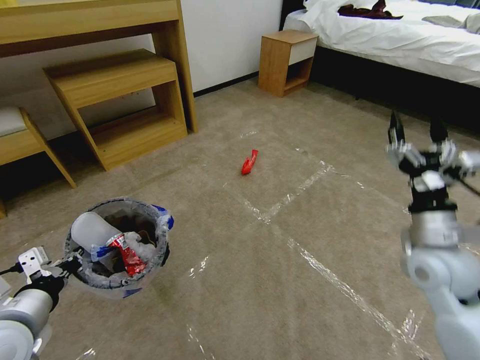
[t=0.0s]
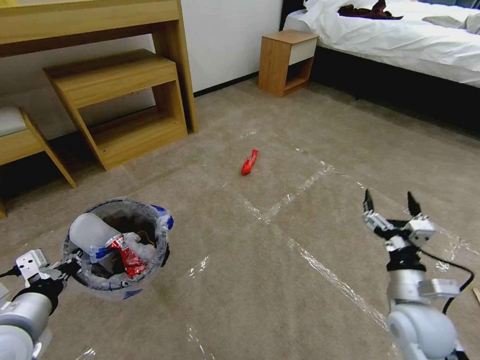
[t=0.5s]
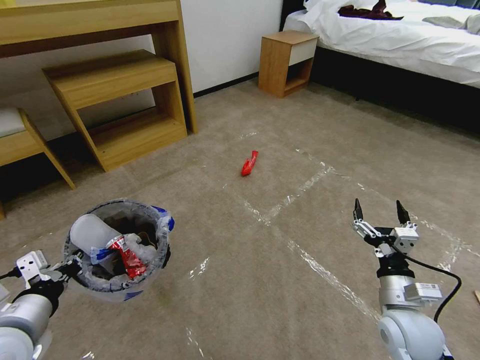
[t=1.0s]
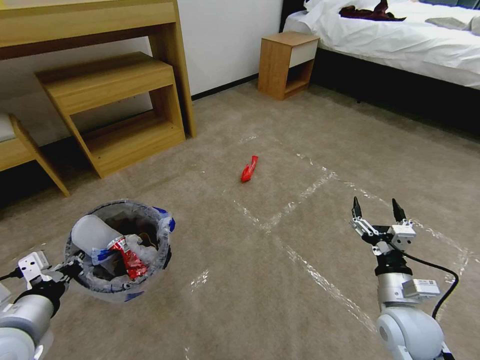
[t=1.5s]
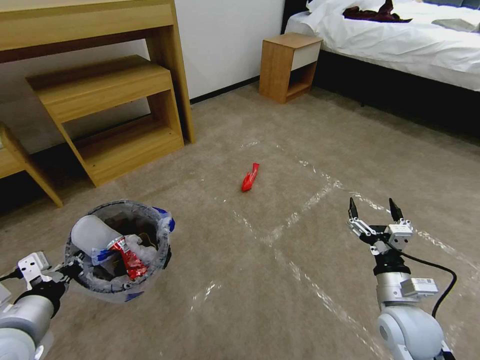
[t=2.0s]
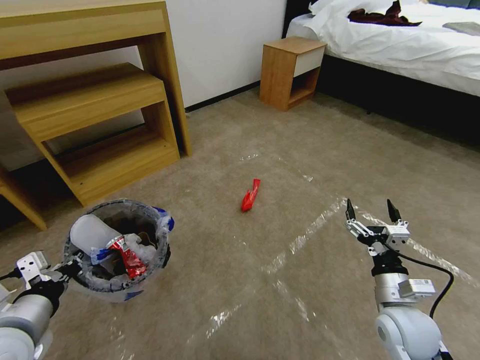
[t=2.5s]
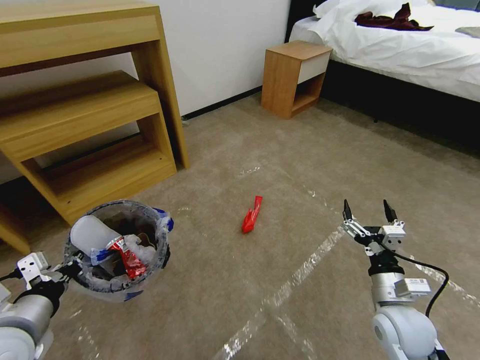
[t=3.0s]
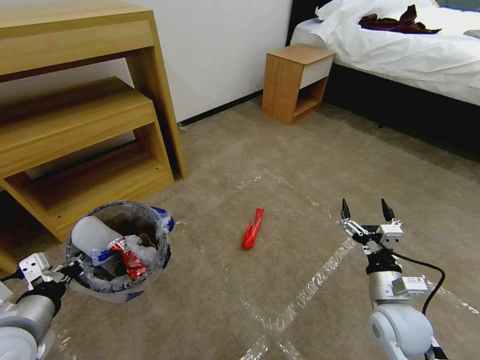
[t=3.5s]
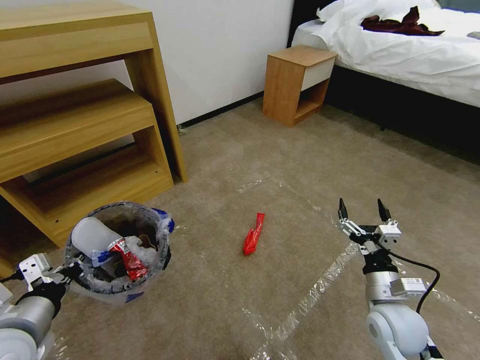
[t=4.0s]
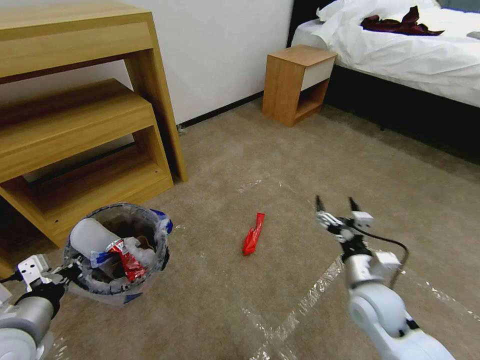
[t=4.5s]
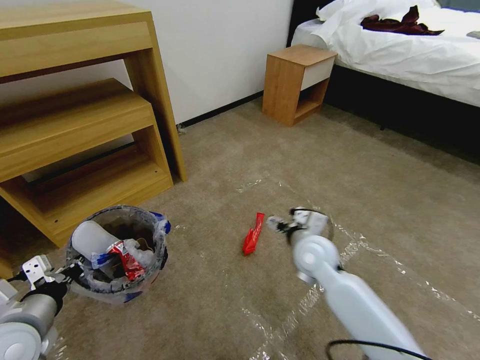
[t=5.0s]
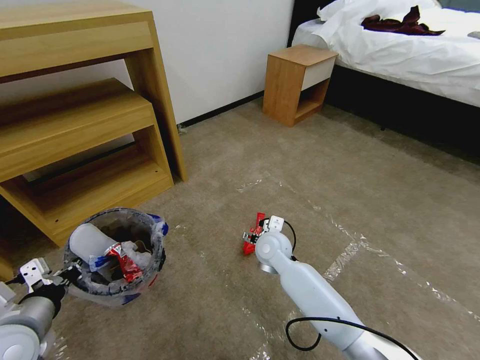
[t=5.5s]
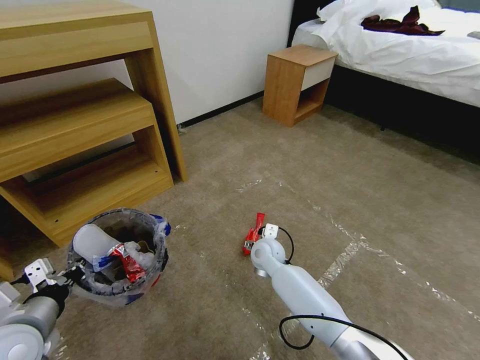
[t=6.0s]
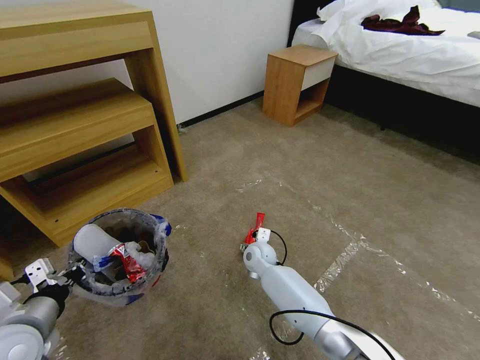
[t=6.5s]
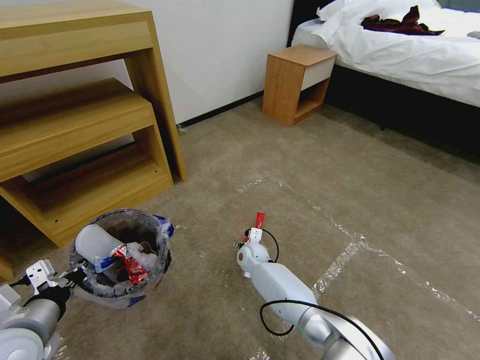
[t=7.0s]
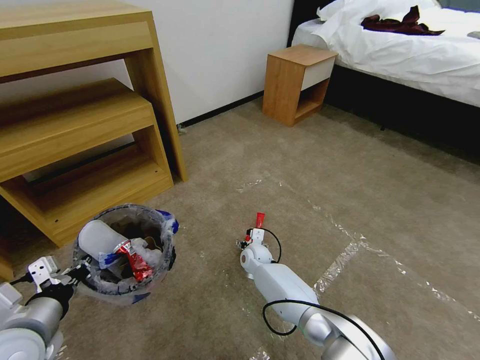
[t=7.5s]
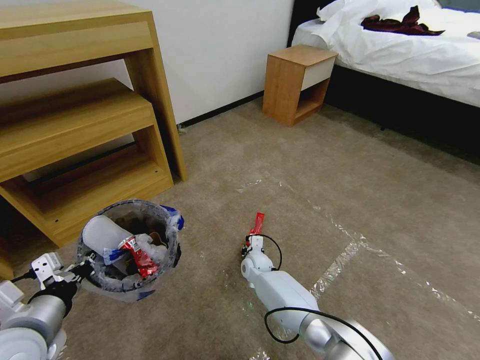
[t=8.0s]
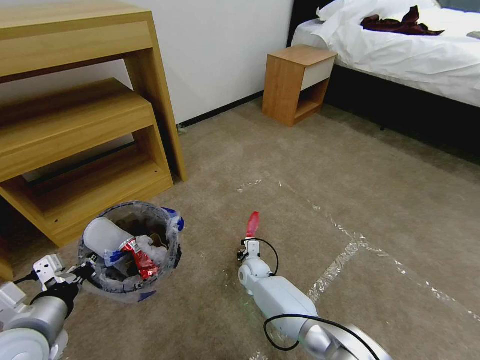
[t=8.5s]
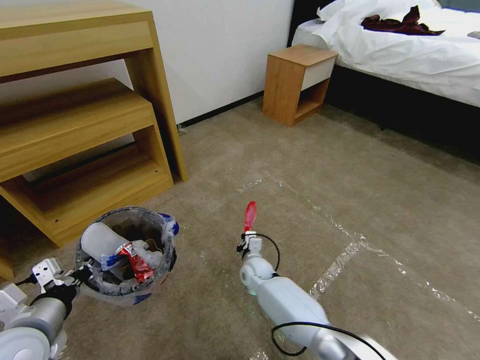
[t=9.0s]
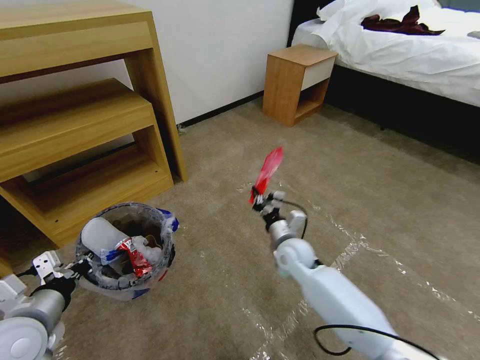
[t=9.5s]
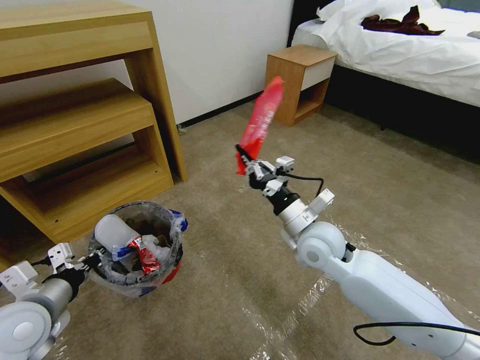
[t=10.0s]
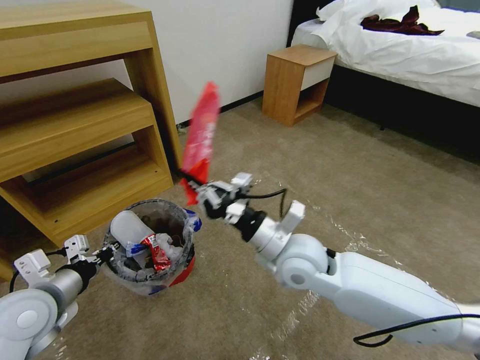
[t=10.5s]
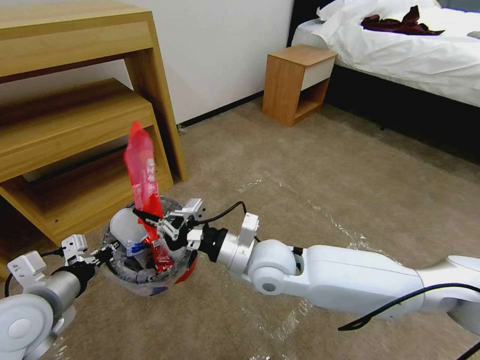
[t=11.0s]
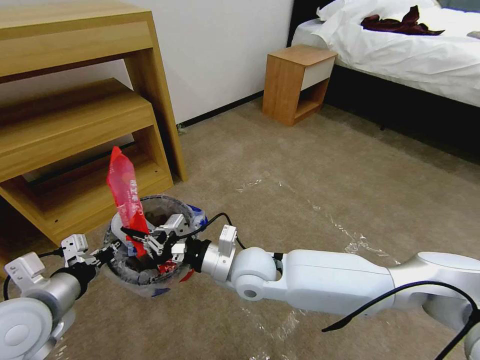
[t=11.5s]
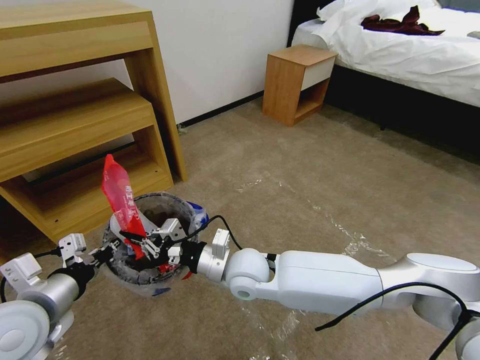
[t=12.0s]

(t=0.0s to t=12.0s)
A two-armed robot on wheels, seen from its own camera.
Task of the whole recording: Pick up the trash bin and place the garbage on the floor into it.
t=0.0s - t=2.0s: The right gripper goes roughly 15 cm downward and backward.
t=4.0s - t=6.0s: The right gripper is displaced to the left and forward by about 30 cm.
t=6.0s - t=8.0s: The right gripper shifts roughly 10 cm downward, and closes.
t=8.0s - t=10.0s: The right gripper is displaced upward by about 30 cm, and closes; the left gripper shifts by approximately 5 cm.
t=10.0s - t=12.0s: The left gripper ends up some 5 cm from where it was. Meanwhile the right gripper moves to the left, some 15 cm.

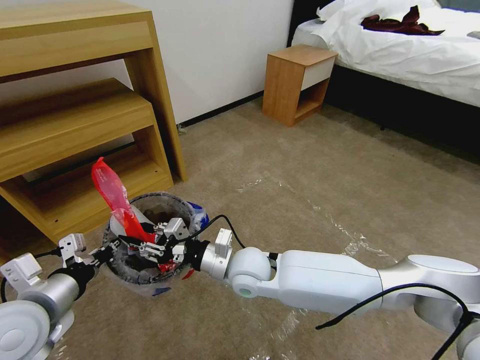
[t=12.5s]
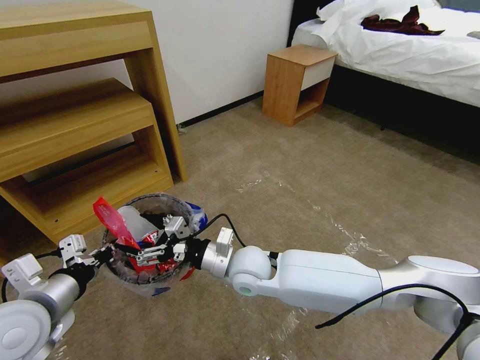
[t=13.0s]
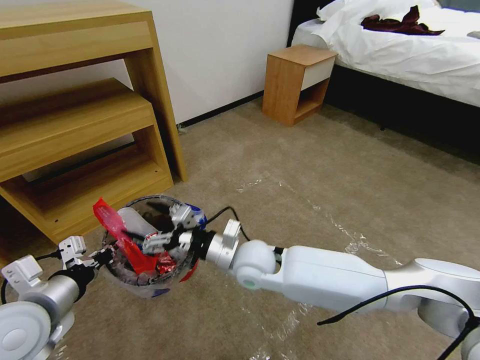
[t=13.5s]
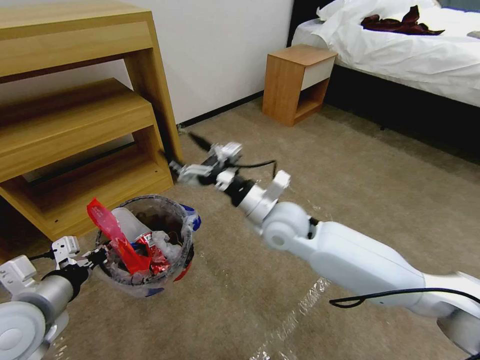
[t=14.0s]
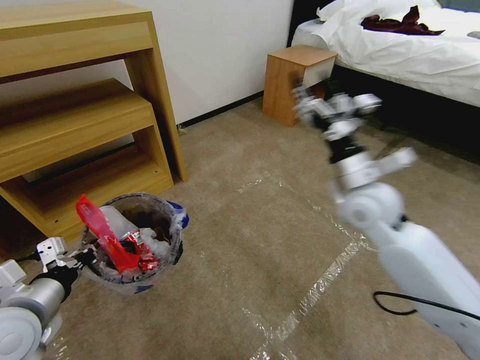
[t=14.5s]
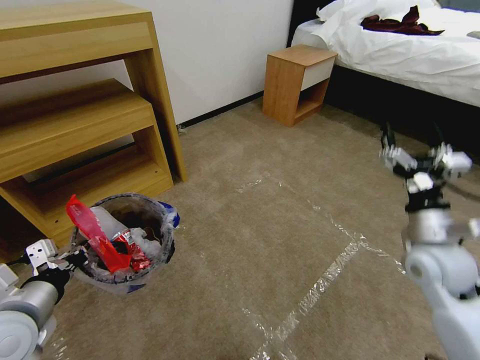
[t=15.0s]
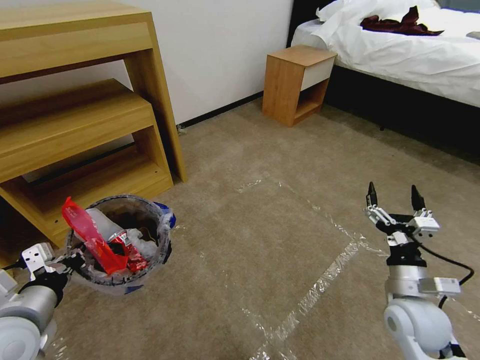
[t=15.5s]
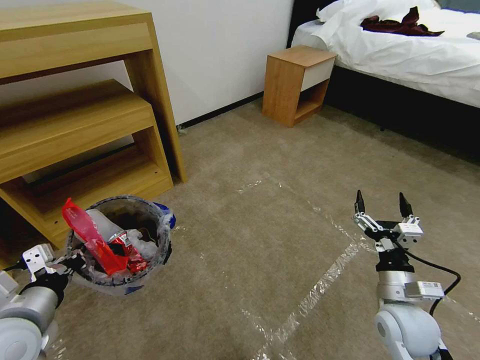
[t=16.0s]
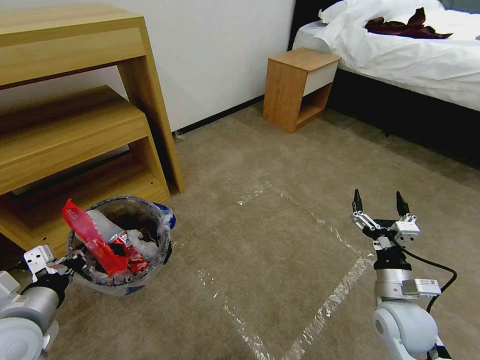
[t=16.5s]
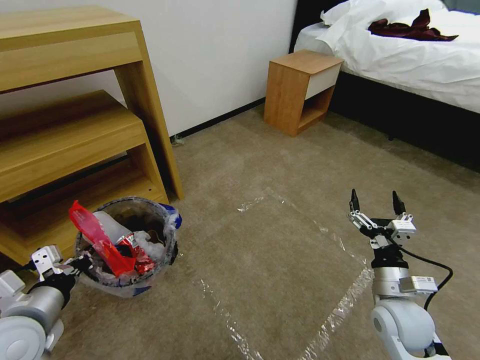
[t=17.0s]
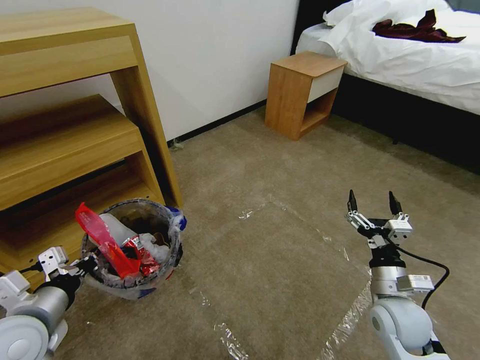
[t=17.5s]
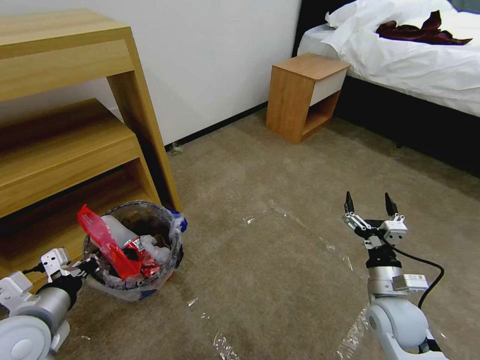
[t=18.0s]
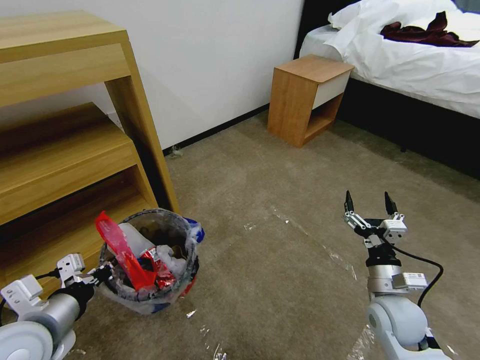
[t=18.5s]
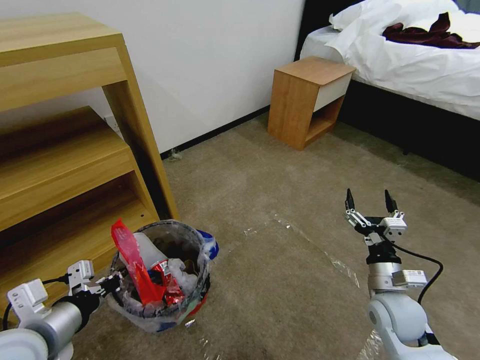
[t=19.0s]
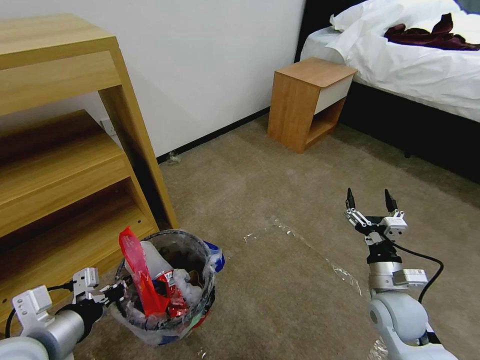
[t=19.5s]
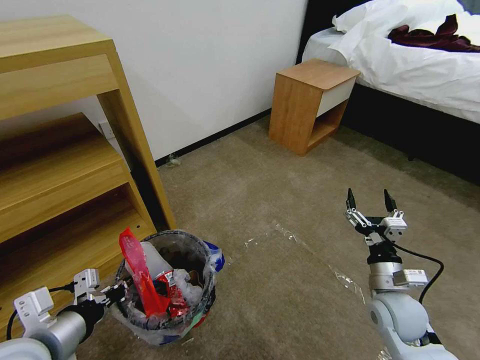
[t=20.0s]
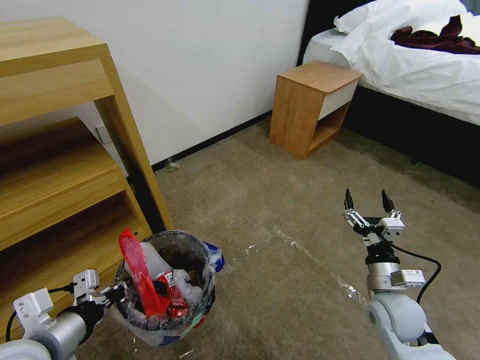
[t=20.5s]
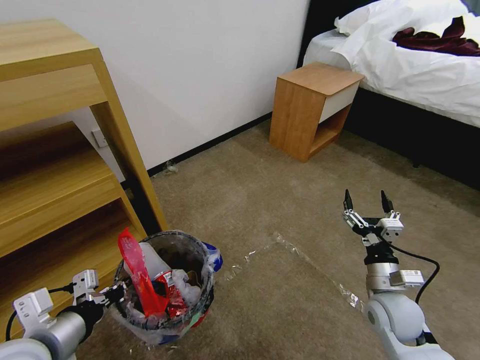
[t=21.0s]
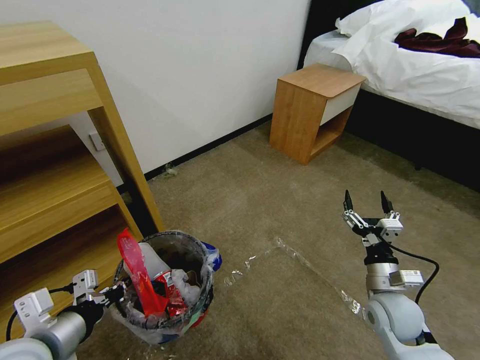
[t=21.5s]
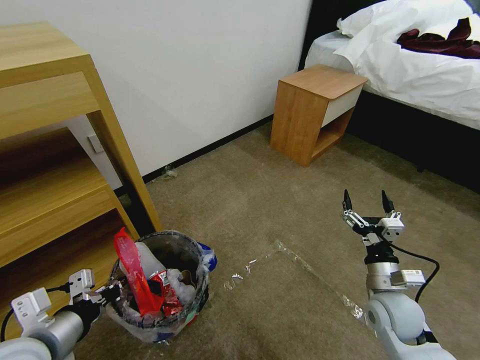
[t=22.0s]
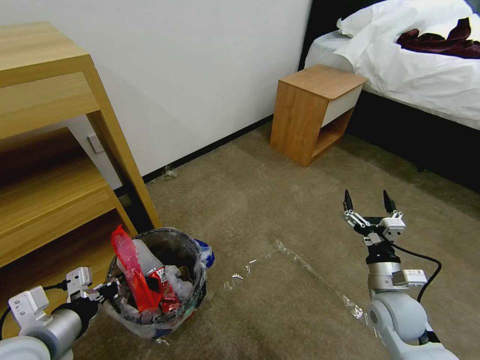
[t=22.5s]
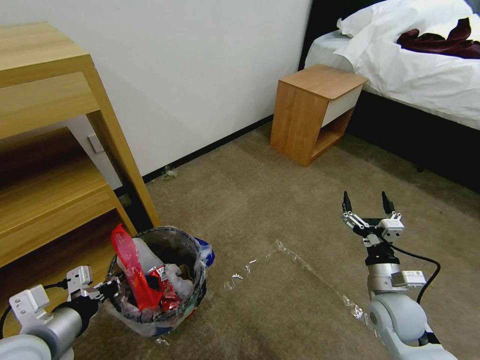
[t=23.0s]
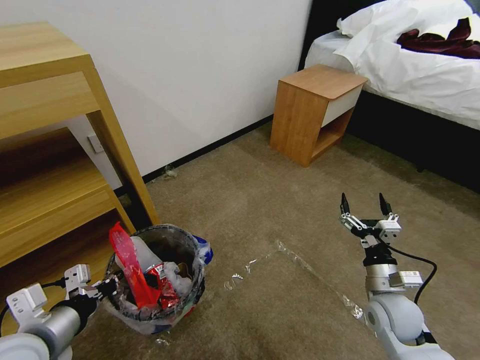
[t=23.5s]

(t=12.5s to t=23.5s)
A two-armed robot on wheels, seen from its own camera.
Task of the whole recording: Pick up the trash bin and place the garbage on the floor into it.
t=12.5s - t=14.5s: The right gripper heads to the right and upward, covering about 30 cm, and opens up.
t=14.5s - t=16.0s: The right gripper heads downward and backward, covering roughly 25 cm.
t=18.0s - t=20.0s: The left gripper shifts by about 5 cm.
t=21.5s - t=23.5s: The two grippers keep their place.
